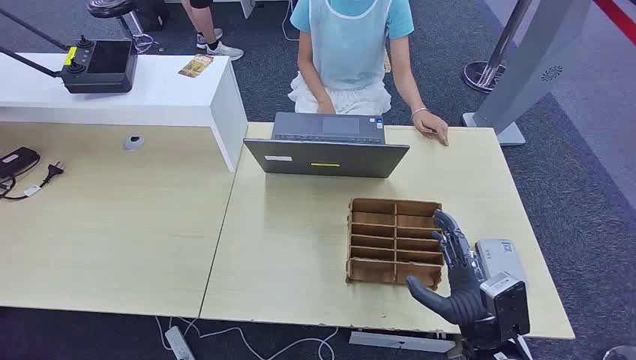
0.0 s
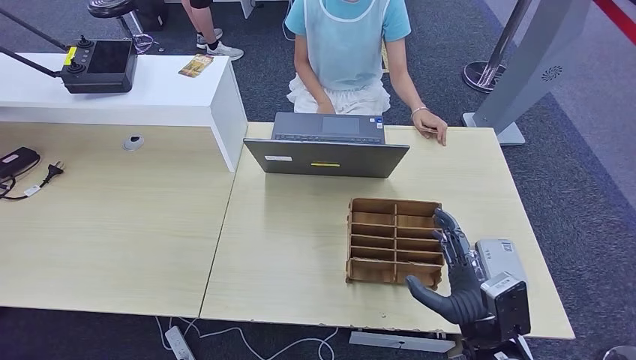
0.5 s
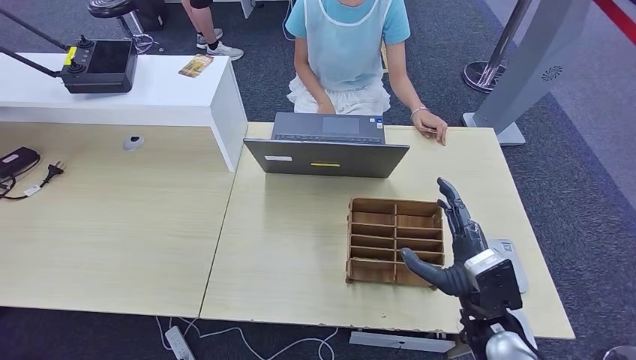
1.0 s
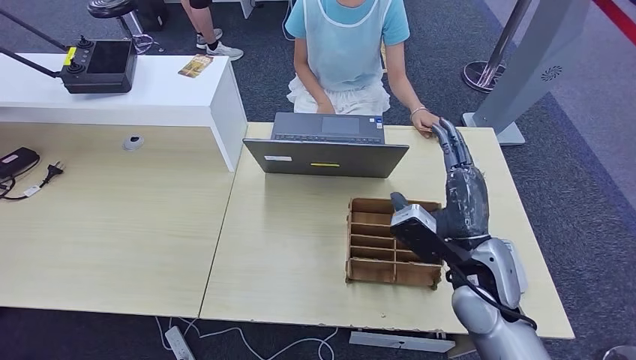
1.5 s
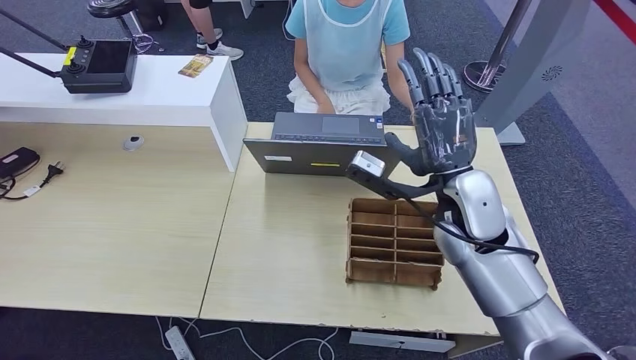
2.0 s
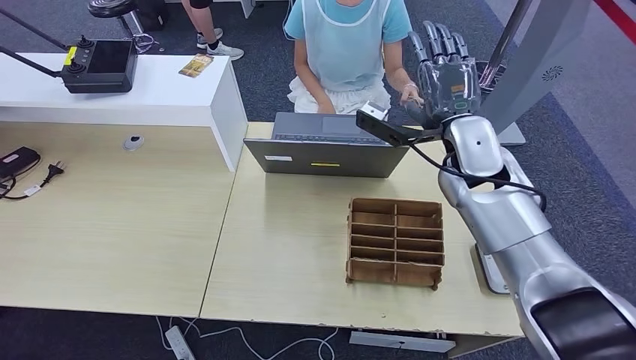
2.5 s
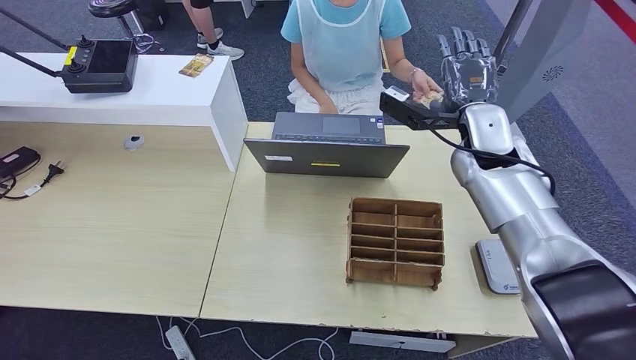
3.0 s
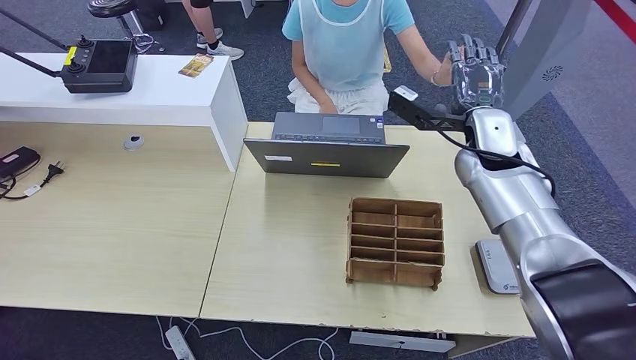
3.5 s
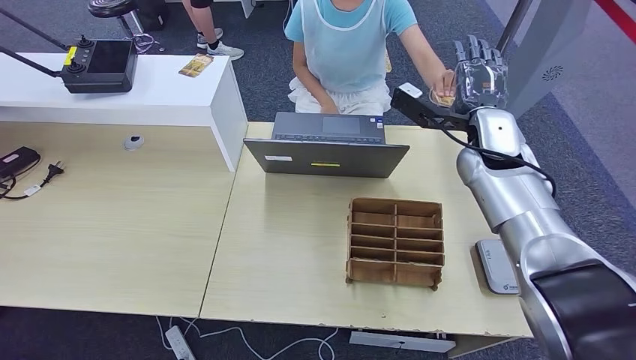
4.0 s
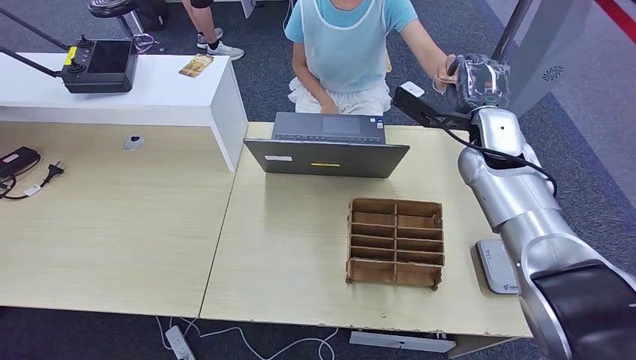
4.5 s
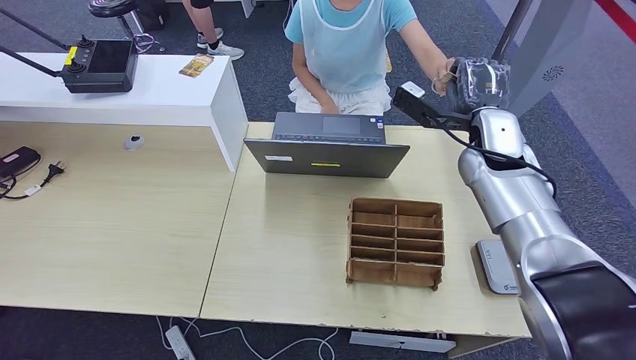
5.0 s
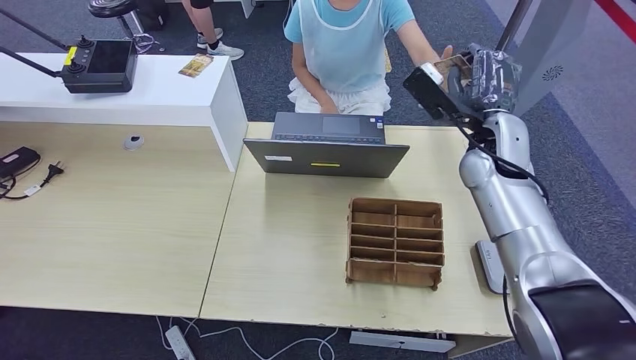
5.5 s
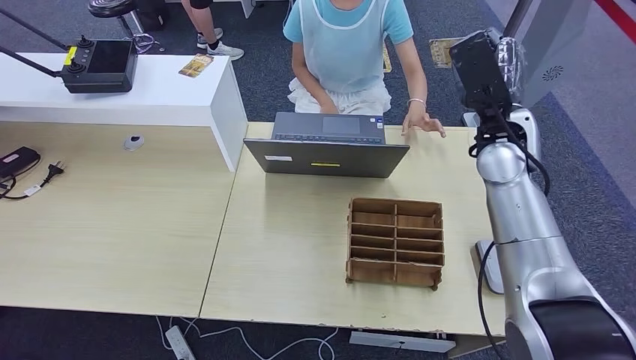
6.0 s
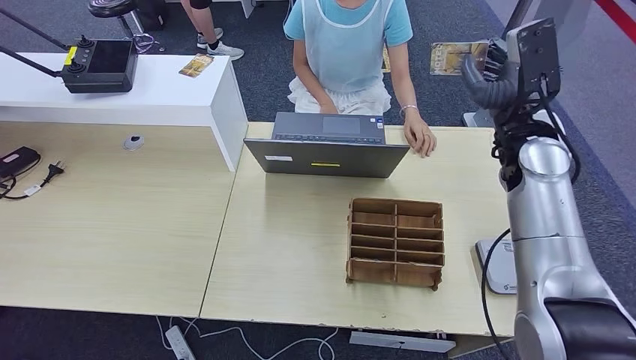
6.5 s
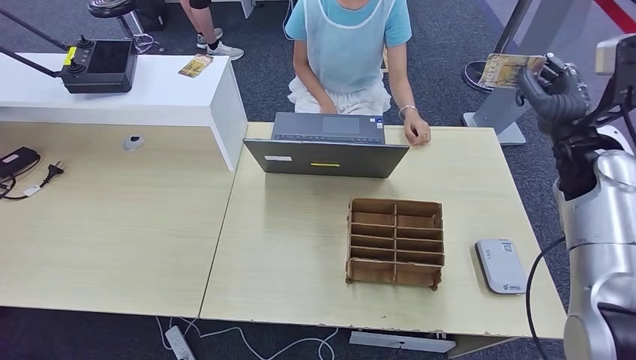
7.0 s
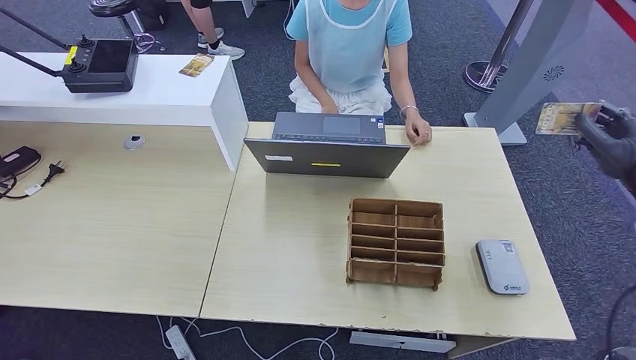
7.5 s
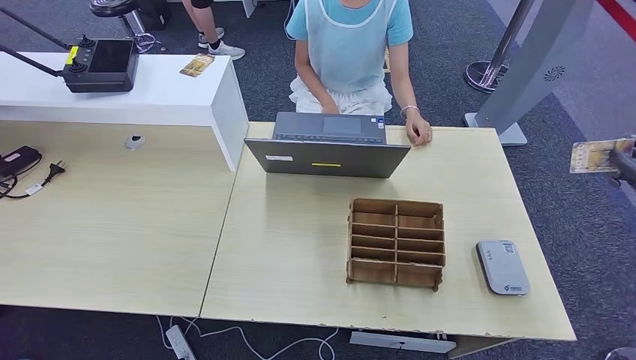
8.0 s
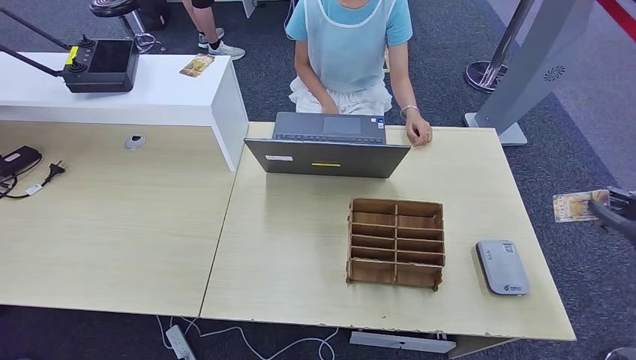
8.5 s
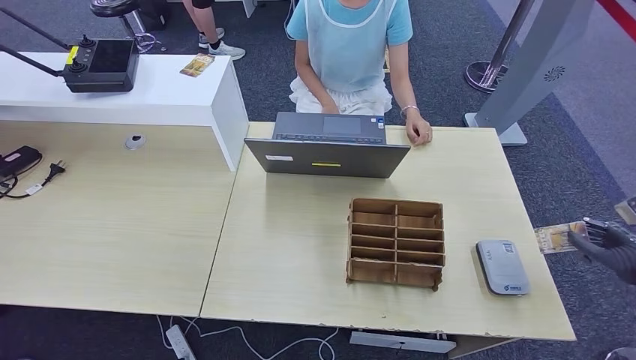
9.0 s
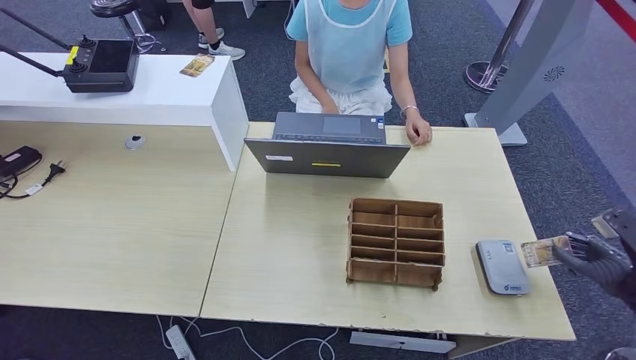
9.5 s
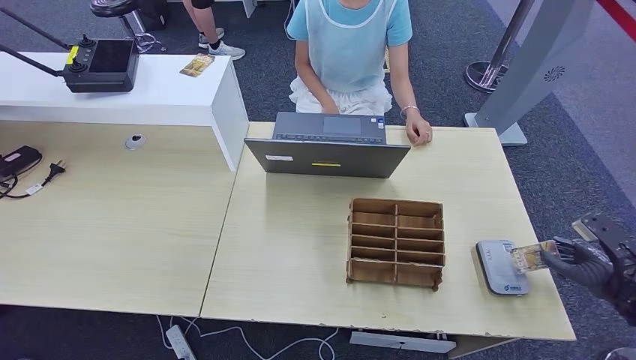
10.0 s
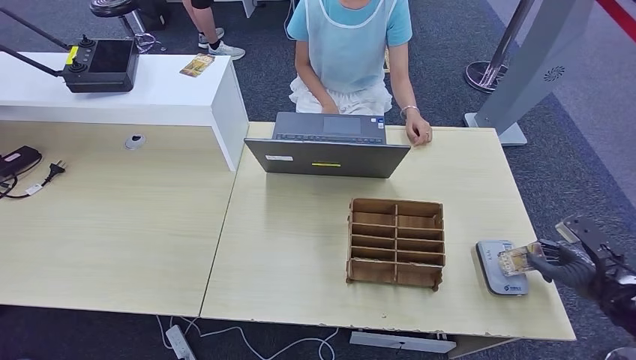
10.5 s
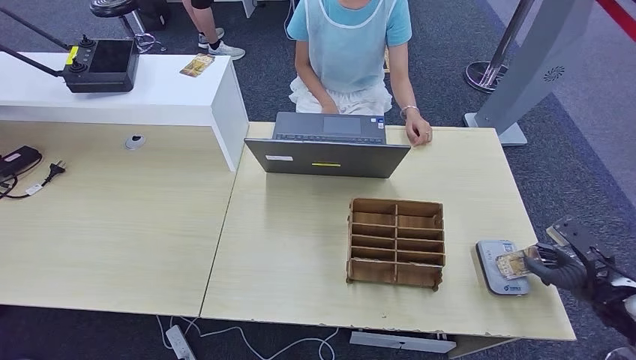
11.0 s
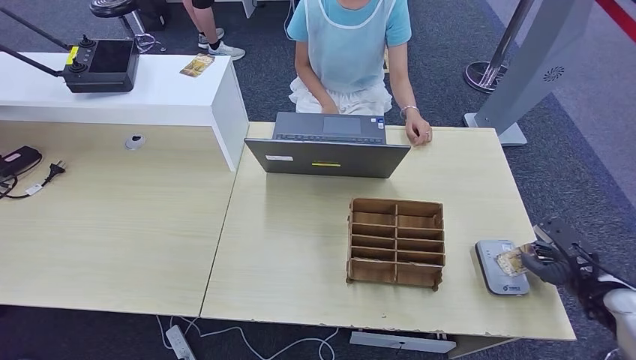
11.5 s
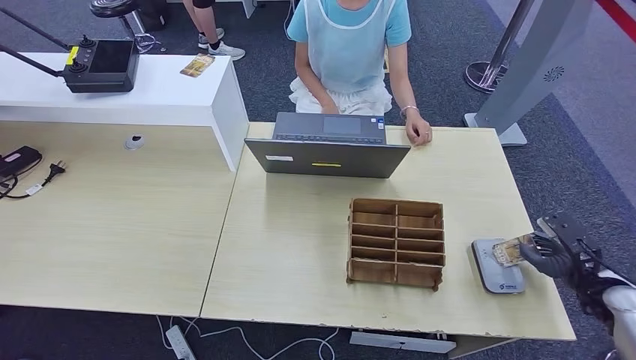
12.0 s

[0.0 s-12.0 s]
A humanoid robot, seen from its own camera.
Step, 0.0 to 7.0 s: Take the ID card from the person's hand.
2.0 to 4.0 s: The right hand travels forward and to the right by approximately 15 cm.
6.0 to 8.0 s: The right hand goes approximately 30 cm to the right.
8.0 to 10.0 s: The right hand heads downward and backward, covering approximately 15 cm.
10.0 to 12.0 s: The right hand shifts by about 5 cm.

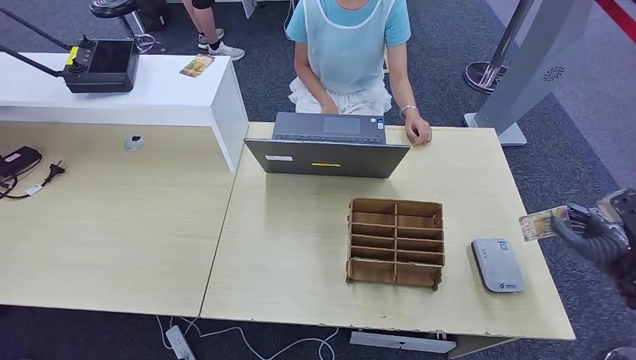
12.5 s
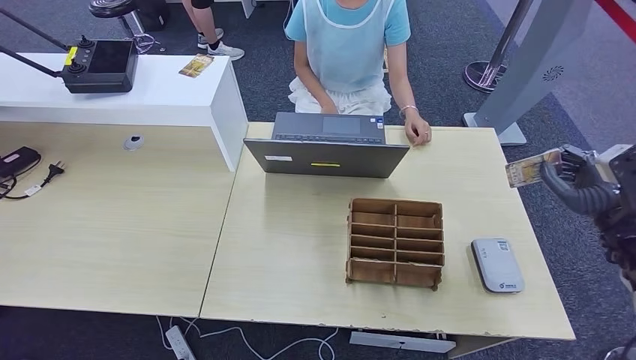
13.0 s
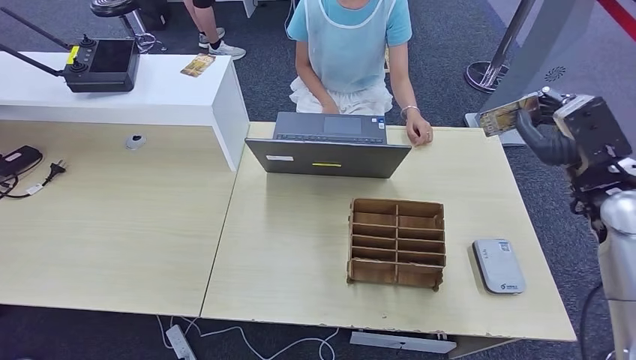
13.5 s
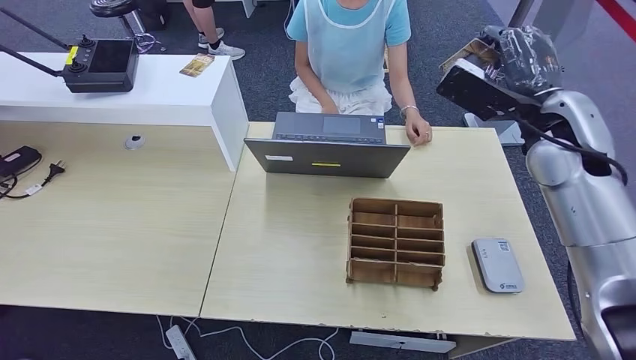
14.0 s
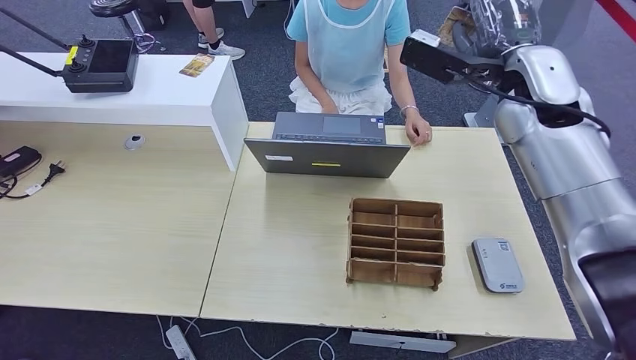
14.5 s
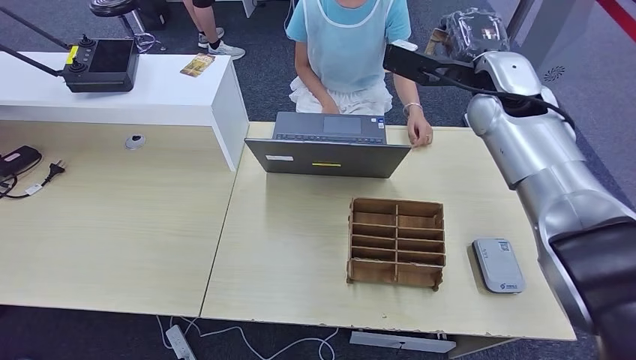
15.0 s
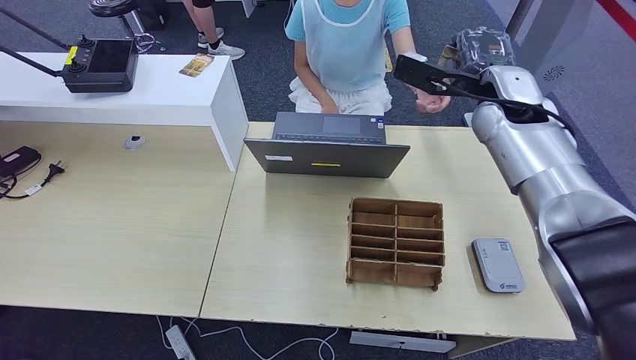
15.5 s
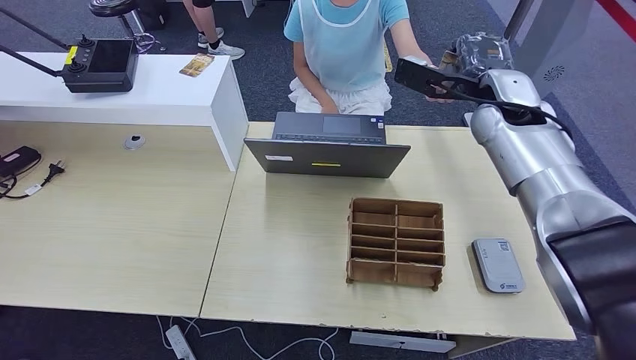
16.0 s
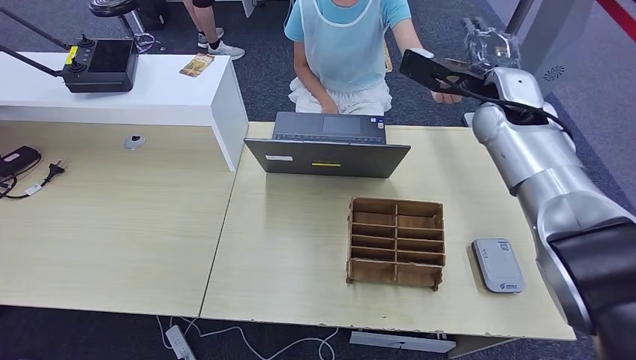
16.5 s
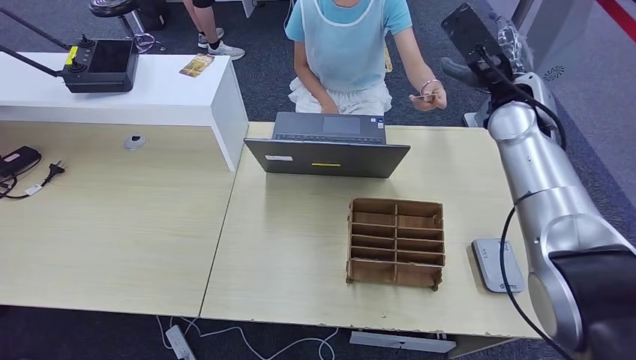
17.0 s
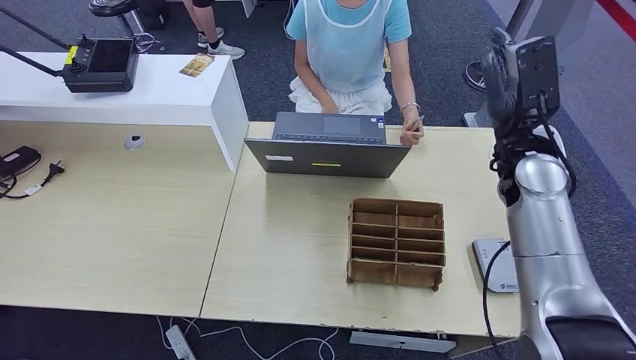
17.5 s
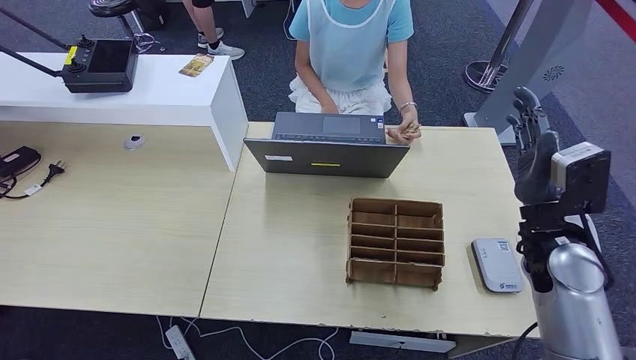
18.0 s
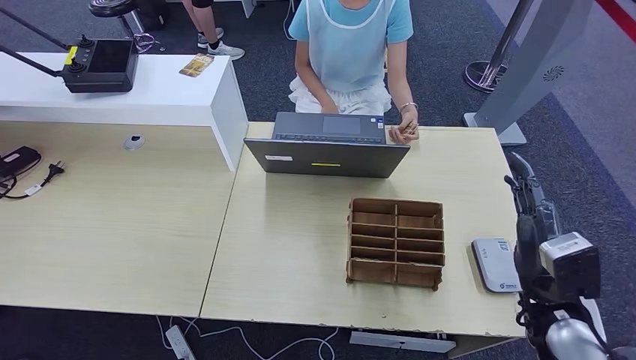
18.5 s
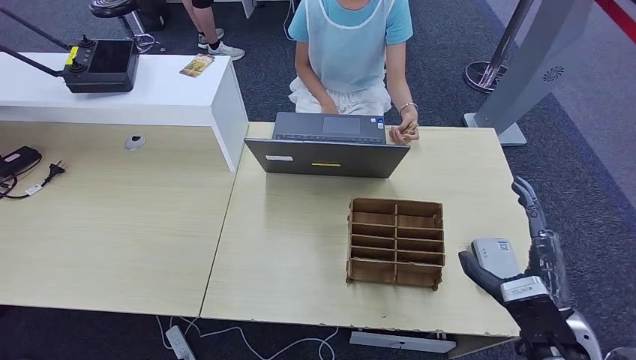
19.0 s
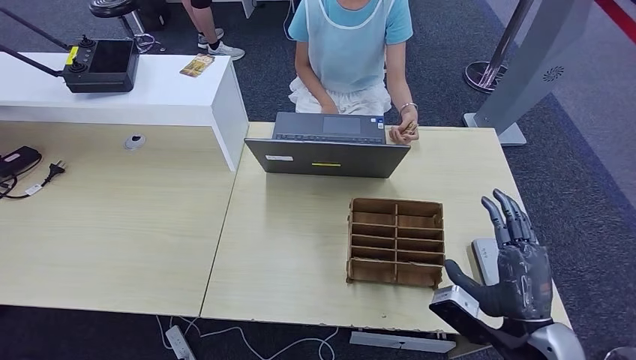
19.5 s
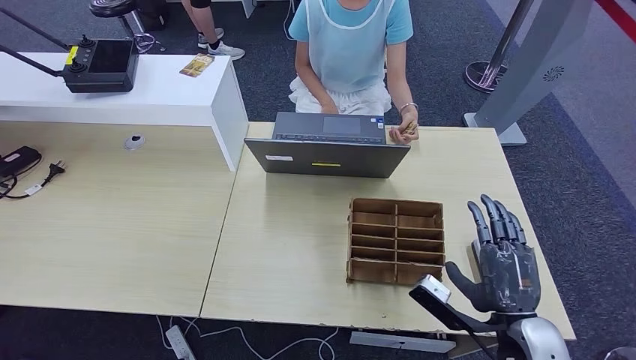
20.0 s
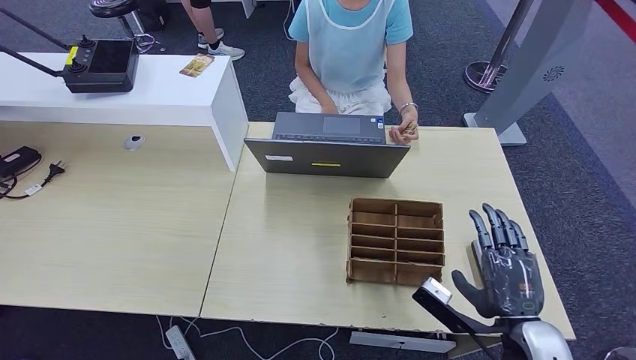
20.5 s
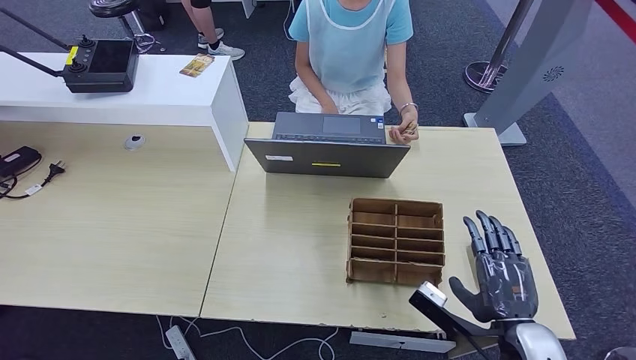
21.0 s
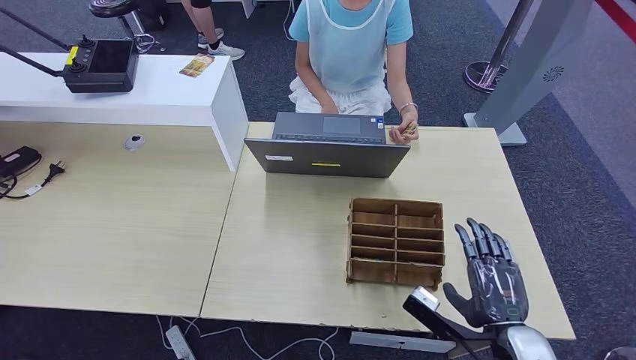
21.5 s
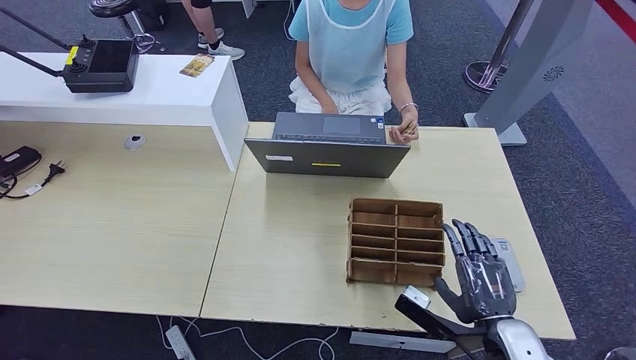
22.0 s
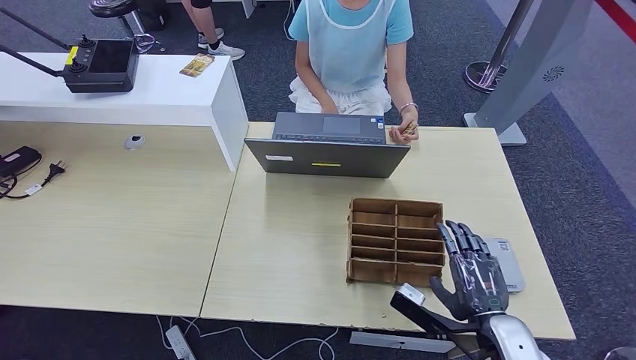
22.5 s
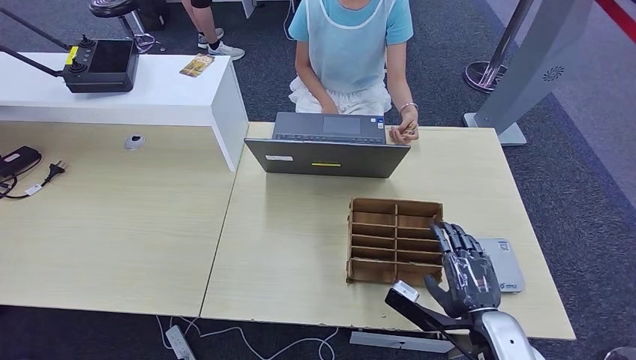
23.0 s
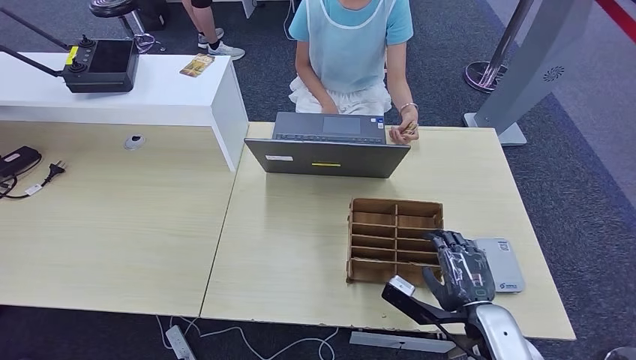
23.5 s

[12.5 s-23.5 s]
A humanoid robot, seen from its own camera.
Step, 13.0 to 19.0 s: Hand the ID card to the person.
12.5 to 14.5 s: The right hand heads to the left, upward and forward, covering roughly 40 cm.
14.5 to 16.0 s: The right hand changes place by roughly 5 cm.
16.0 to 18.0 s: The right hand moves backward and downward, approximately 20 cm.
18.0 to 20.0 s: The right hand shifts about 15 cm backward and downward.
20.0 to 23.5 s: The hands move only a little.
